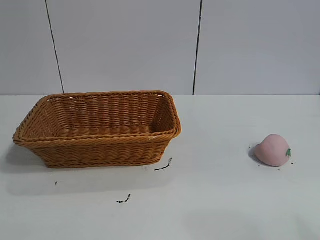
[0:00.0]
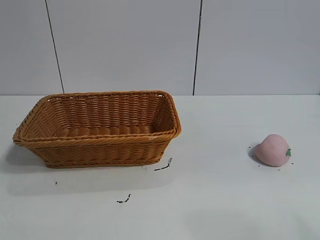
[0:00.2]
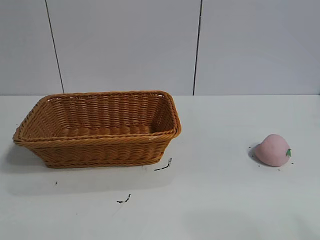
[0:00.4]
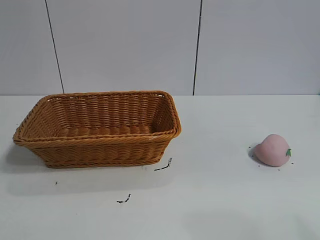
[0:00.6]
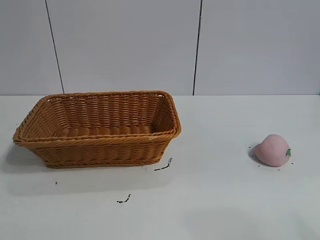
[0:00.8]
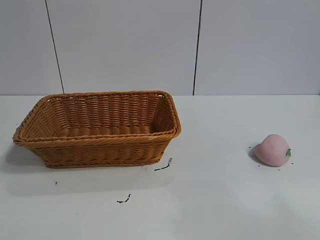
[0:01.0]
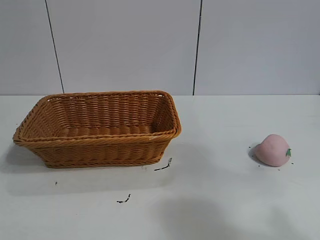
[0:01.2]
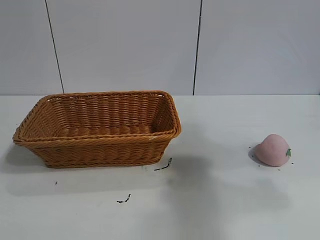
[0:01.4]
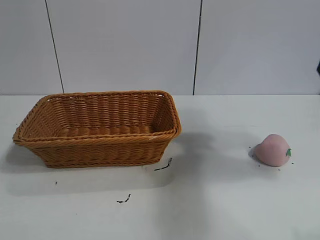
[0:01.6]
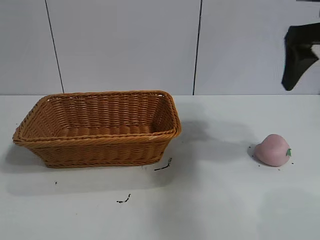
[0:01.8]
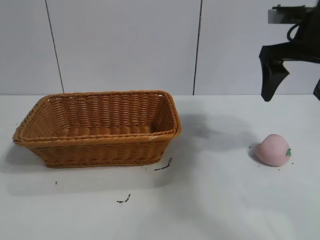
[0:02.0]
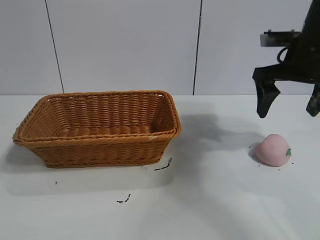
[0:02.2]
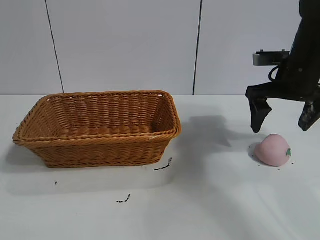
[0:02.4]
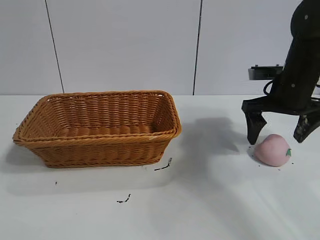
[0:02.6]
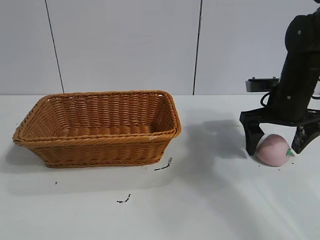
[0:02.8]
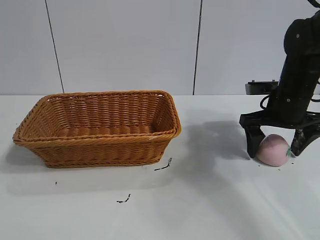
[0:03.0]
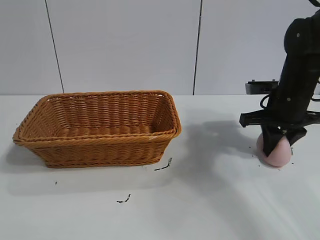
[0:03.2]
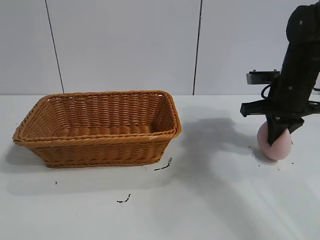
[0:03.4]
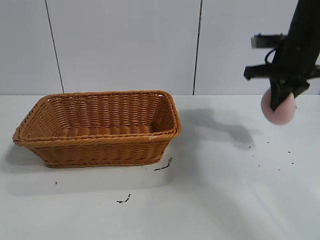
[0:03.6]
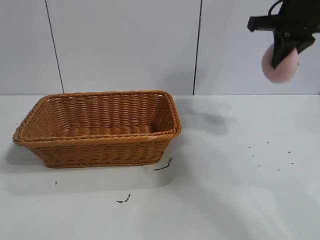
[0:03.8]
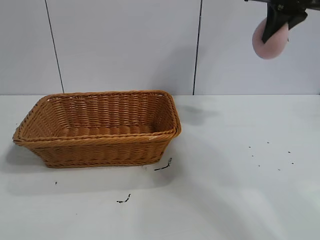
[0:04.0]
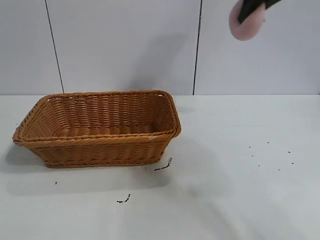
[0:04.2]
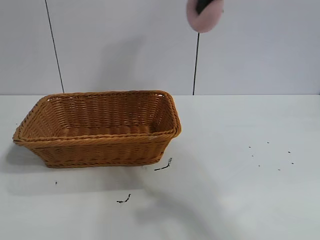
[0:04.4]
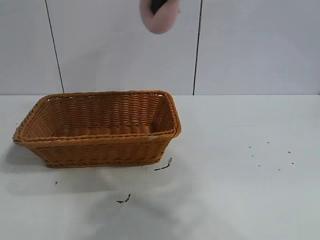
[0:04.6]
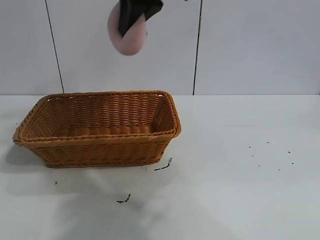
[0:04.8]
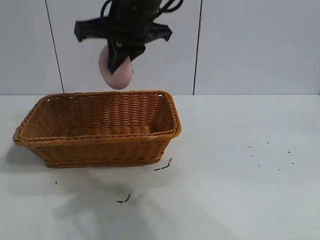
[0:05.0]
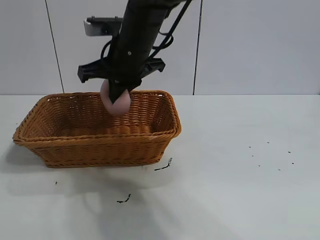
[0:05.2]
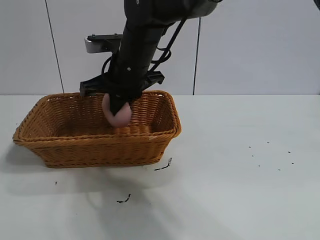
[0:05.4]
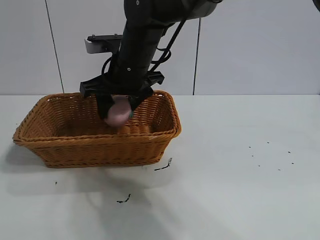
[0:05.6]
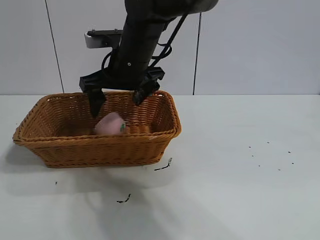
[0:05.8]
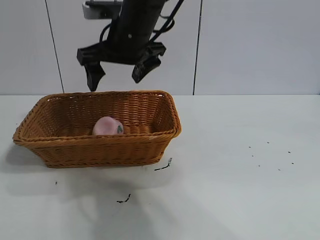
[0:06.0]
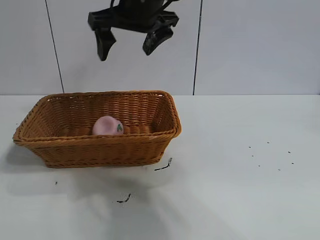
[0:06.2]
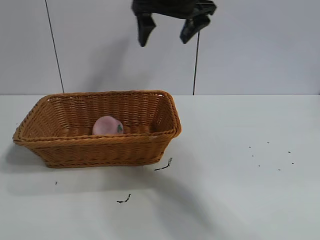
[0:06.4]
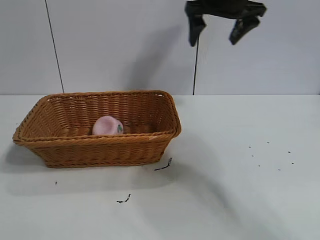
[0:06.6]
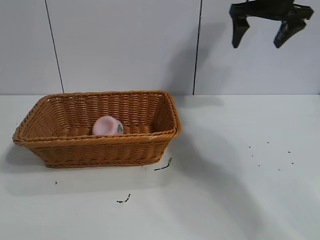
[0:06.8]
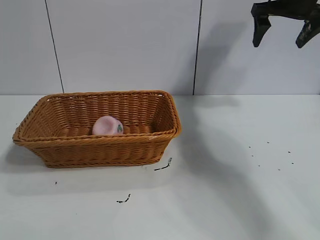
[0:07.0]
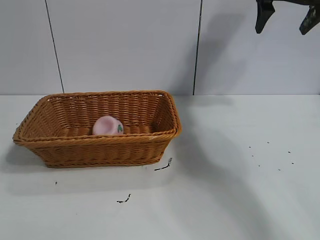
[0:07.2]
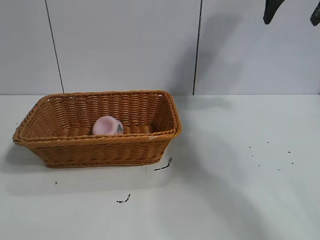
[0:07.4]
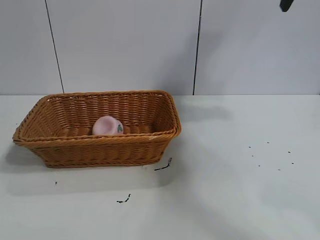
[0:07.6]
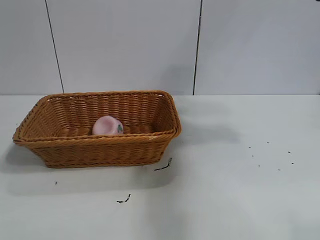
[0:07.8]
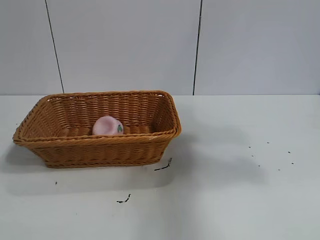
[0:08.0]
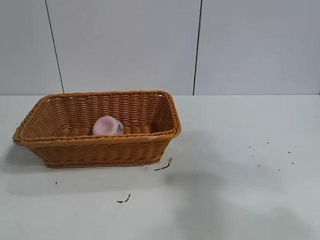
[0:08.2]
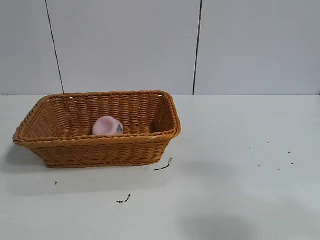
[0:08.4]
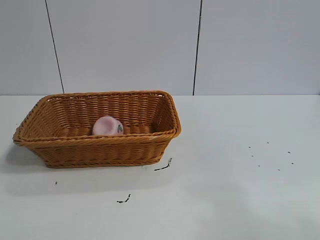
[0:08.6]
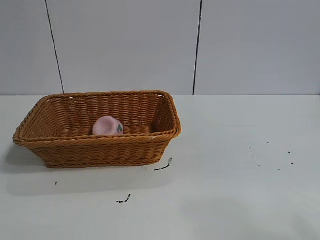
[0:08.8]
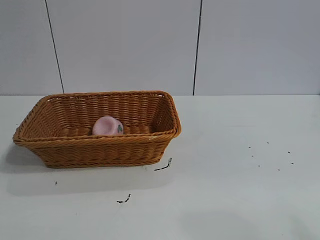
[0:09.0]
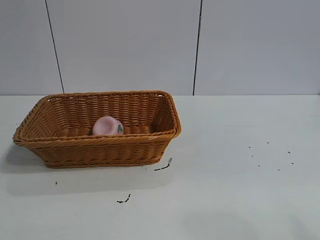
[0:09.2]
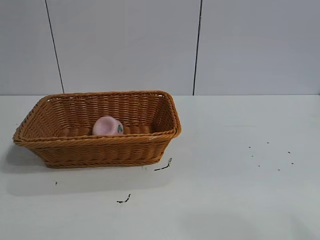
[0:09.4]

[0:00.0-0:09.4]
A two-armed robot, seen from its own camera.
Task of the whole recording: pick up the peach and put it into the basket.
Step, 0:01.0 to 0:03.2: Grasp the peach with right gripper.
Step, 0:03.4 to 0:05.6: Place the peach in the basket with right gripper.
